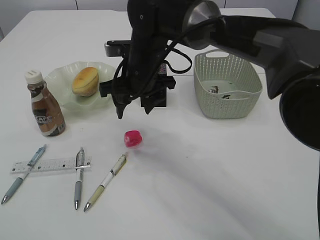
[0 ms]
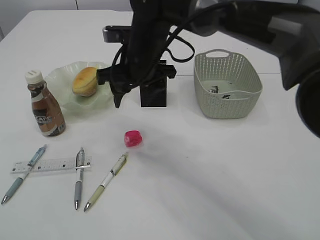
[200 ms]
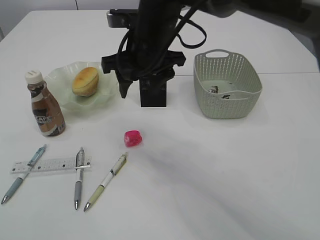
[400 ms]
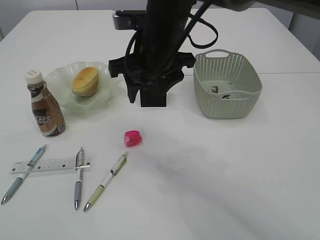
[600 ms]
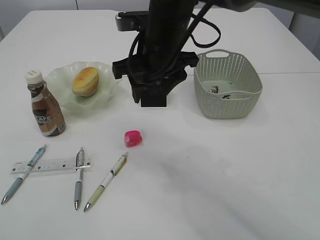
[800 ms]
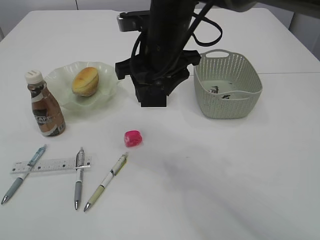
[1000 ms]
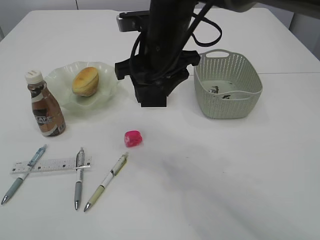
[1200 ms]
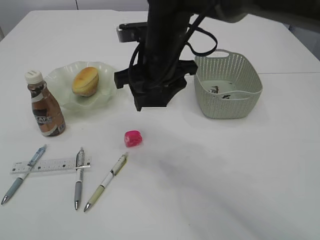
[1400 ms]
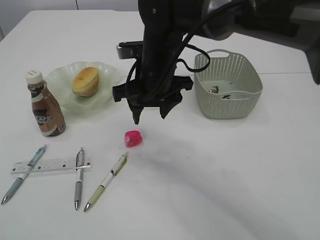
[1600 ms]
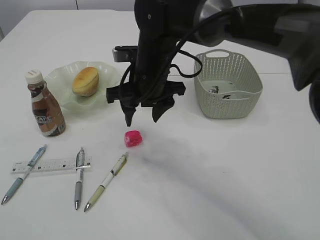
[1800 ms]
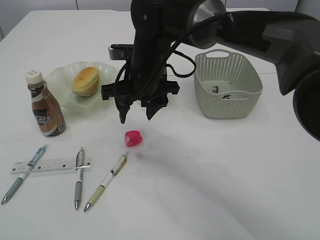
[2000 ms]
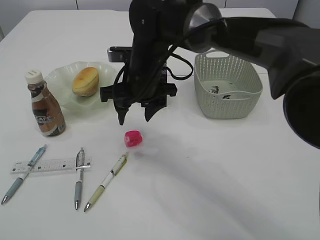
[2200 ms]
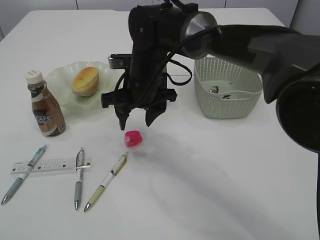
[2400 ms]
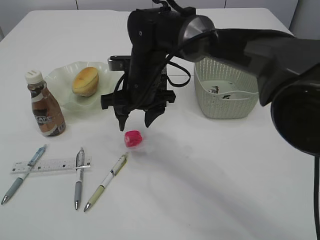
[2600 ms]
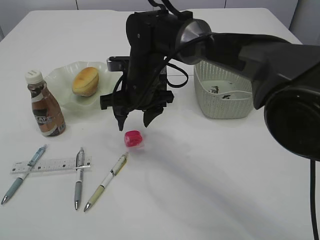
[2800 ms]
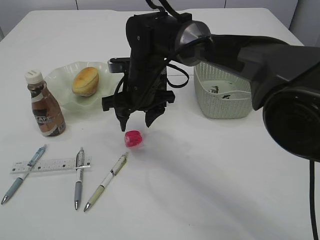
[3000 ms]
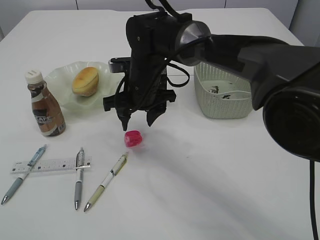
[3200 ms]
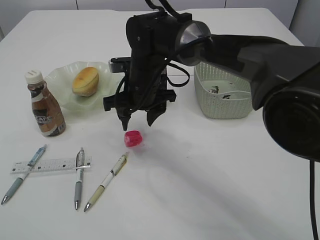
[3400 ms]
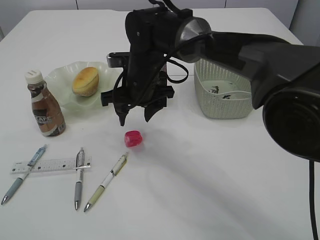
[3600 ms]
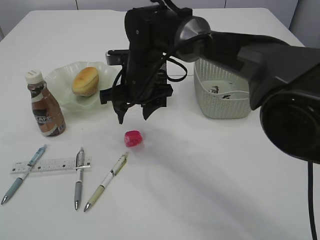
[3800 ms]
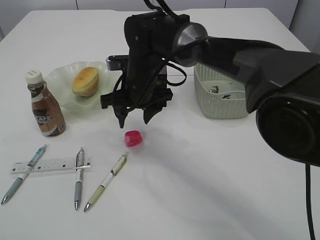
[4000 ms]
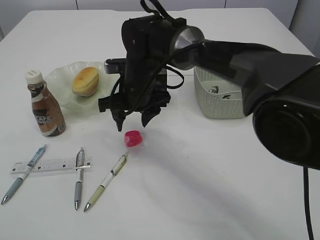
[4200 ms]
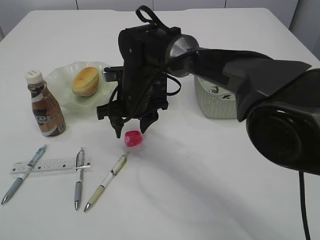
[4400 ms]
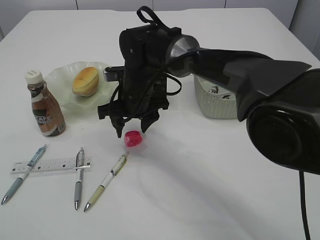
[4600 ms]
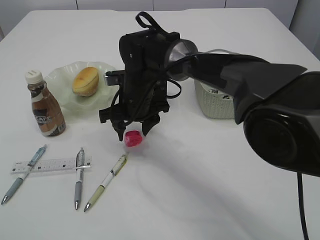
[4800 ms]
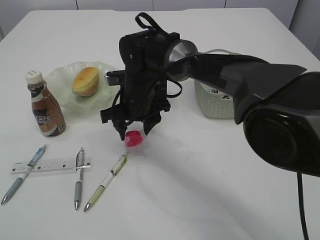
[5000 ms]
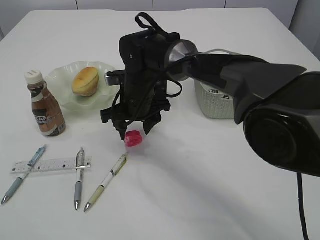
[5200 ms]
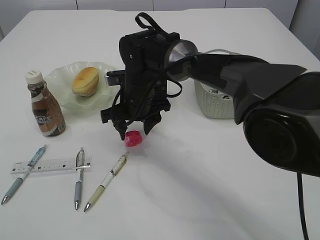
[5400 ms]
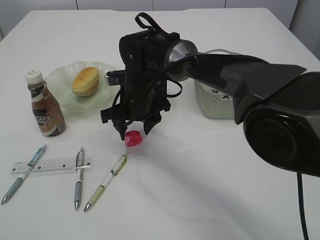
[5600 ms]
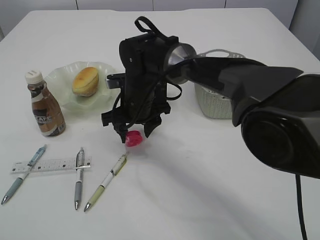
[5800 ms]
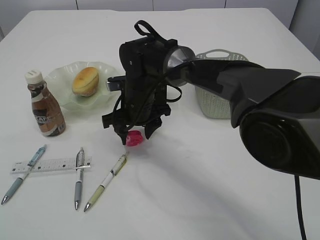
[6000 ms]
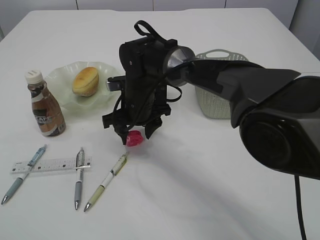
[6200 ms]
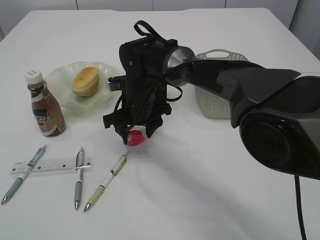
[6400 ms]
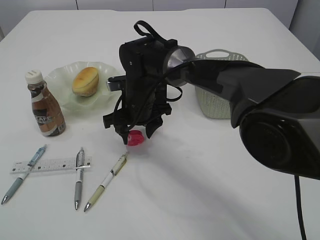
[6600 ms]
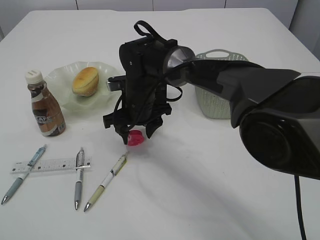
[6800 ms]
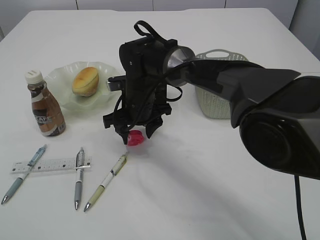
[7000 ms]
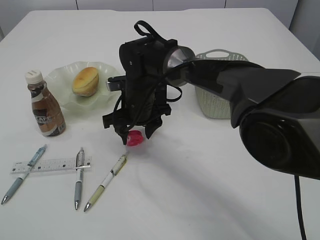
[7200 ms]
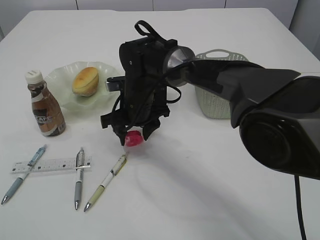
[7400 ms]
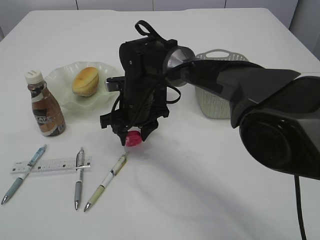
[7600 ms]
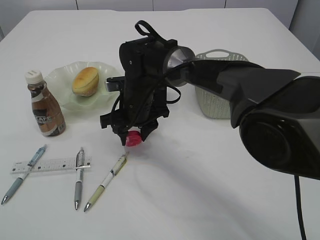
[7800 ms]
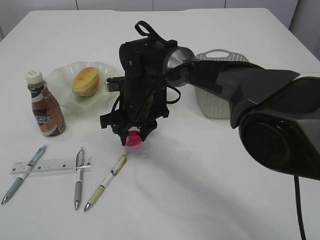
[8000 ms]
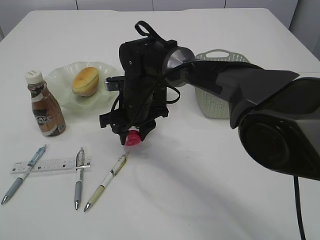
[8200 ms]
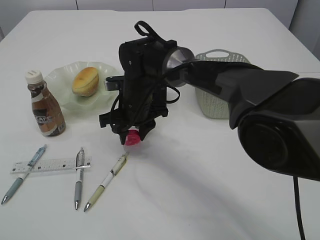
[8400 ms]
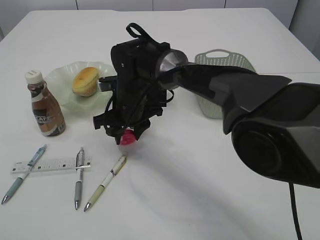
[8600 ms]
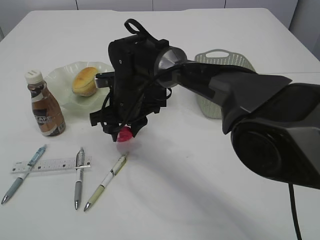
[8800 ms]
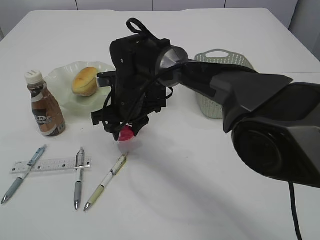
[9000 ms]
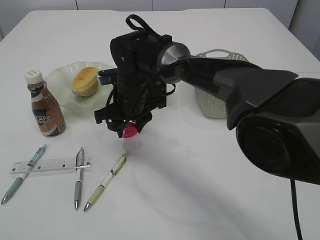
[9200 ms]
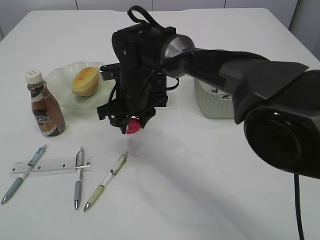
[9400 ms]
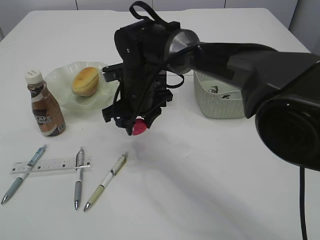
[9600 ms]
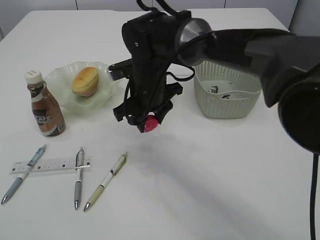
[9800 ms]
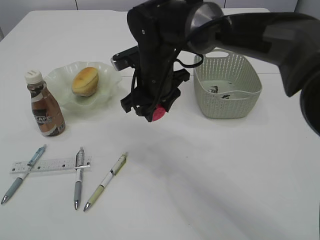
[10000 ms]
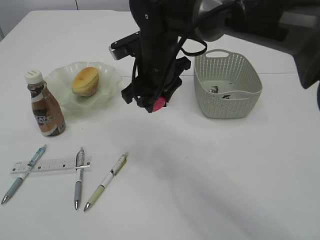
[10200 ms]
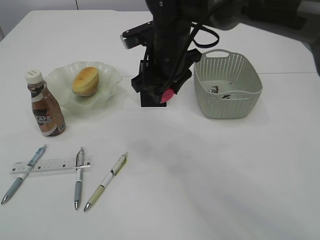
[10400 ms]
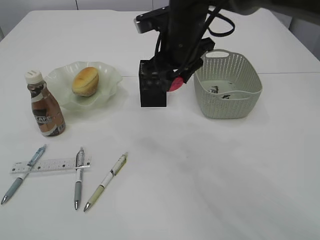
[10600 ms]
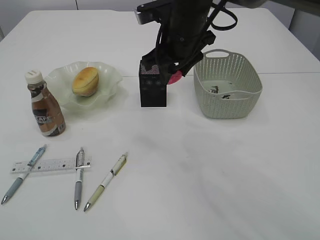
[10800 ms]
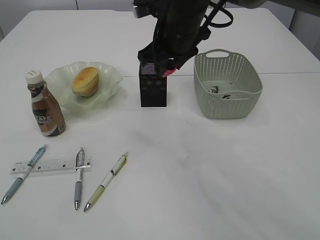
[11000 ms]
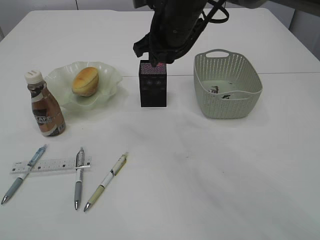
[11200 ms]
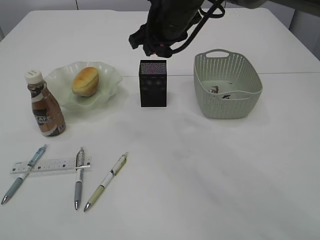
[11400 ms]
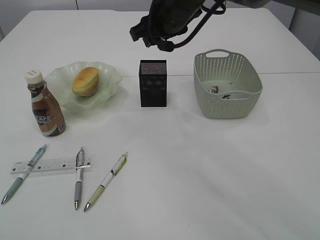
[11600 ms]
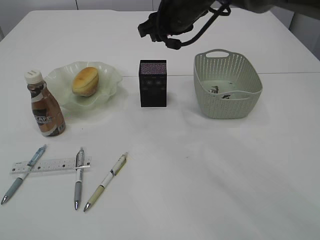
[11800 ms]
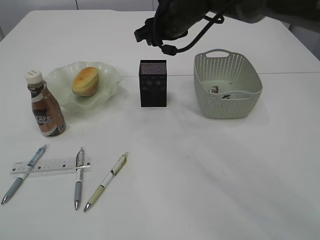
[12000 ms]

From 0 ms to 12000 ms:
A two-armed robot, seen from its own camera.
Step, from 0 ms to 10000 ms: Pick up the red pencil sharpener.
From 1600 ms to 3000 ms: The right gripper moves some 5 cm.
From 3000 ms to 6000 ms: There are only small adjustments of the grippers.
From 6000 ms to 9000 ms: Both grippers stay put.
From 9000 ms to 10400 ms: The right gripper shifts some 10 cm upward and to the right.
From 10400 ms to 12000 ms: The right gripper shifts roughly 5 cm forward.

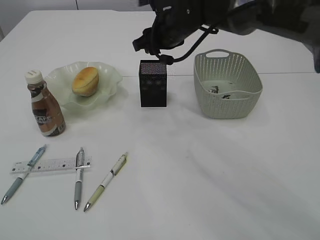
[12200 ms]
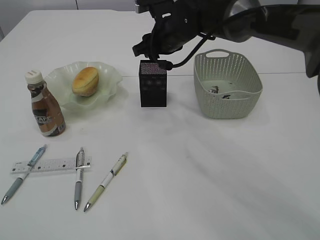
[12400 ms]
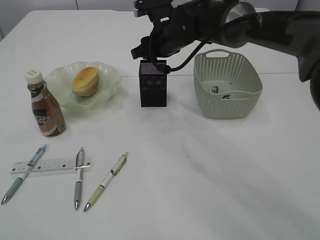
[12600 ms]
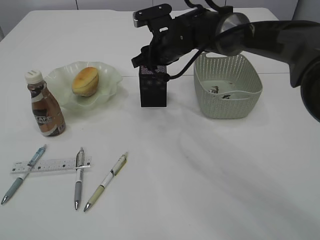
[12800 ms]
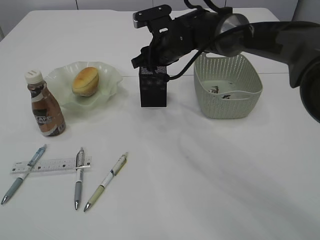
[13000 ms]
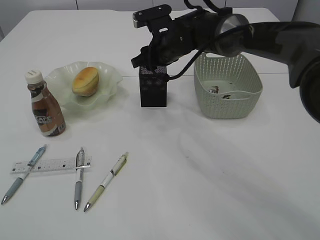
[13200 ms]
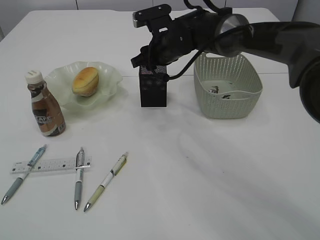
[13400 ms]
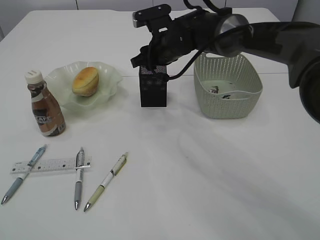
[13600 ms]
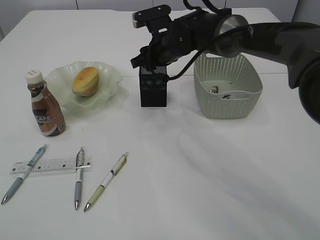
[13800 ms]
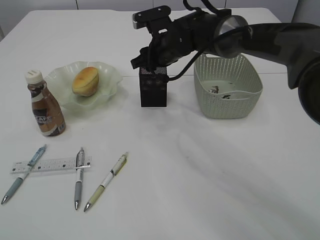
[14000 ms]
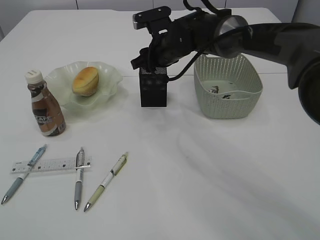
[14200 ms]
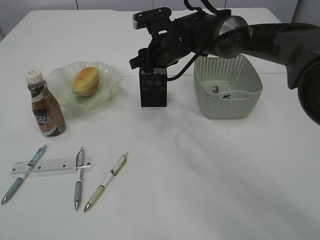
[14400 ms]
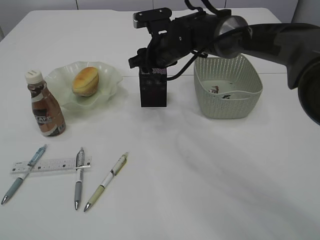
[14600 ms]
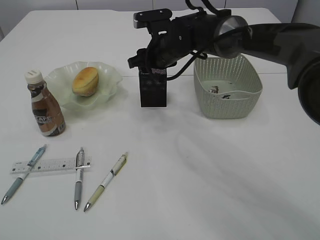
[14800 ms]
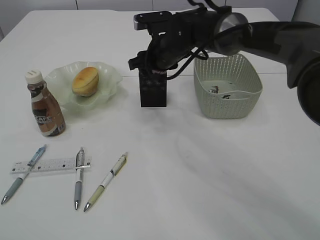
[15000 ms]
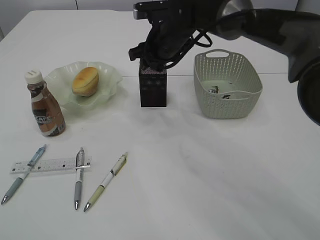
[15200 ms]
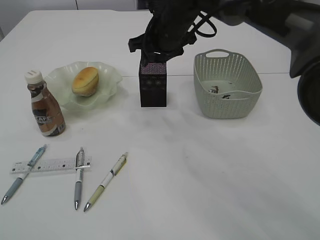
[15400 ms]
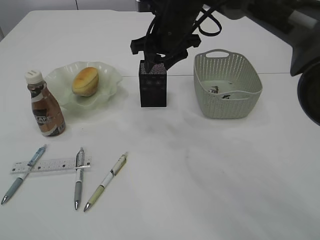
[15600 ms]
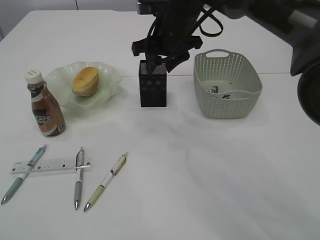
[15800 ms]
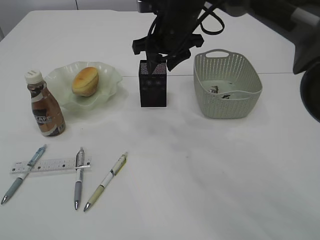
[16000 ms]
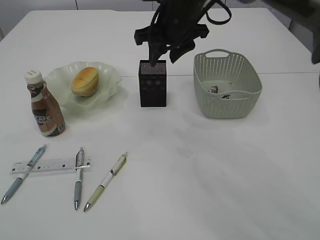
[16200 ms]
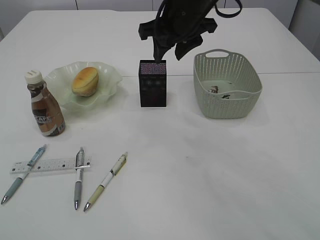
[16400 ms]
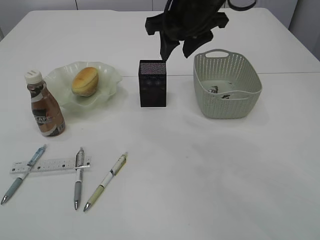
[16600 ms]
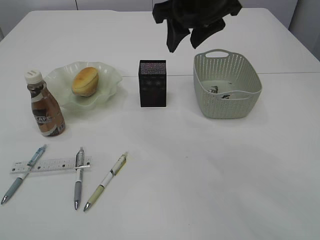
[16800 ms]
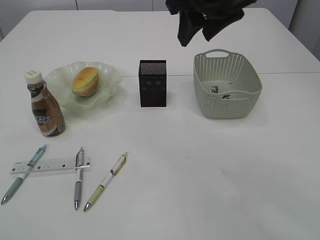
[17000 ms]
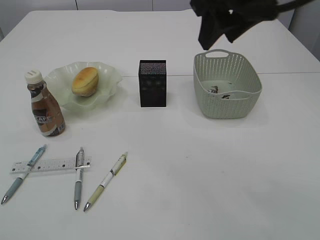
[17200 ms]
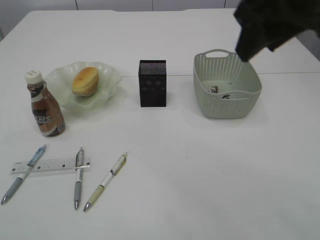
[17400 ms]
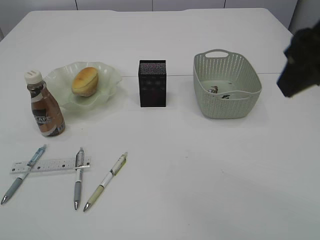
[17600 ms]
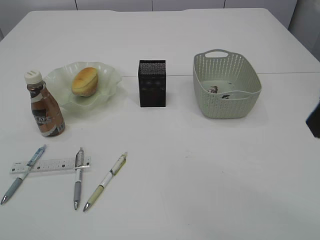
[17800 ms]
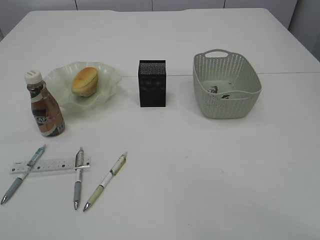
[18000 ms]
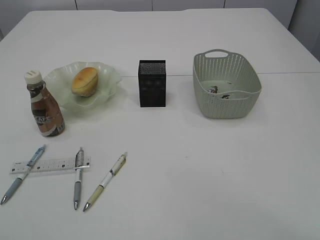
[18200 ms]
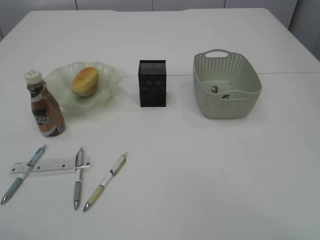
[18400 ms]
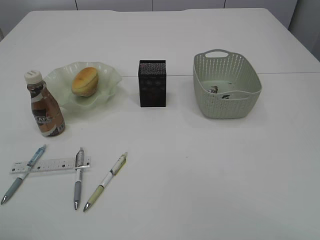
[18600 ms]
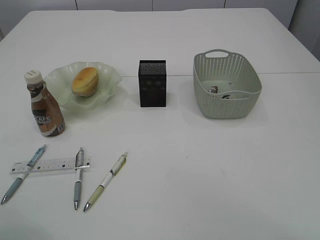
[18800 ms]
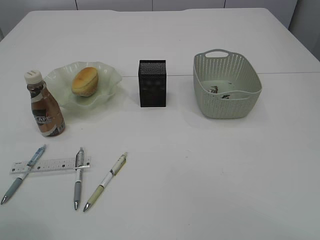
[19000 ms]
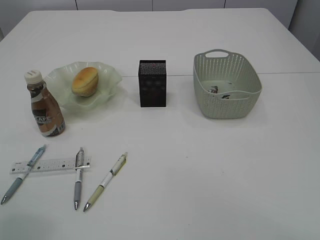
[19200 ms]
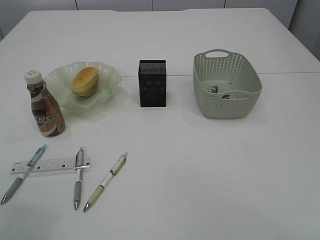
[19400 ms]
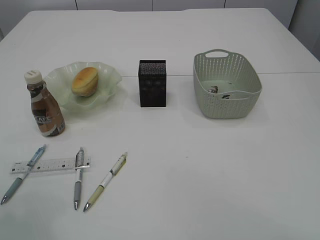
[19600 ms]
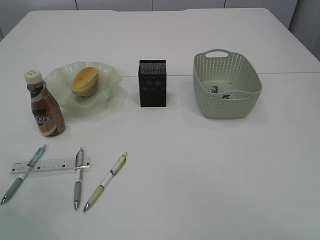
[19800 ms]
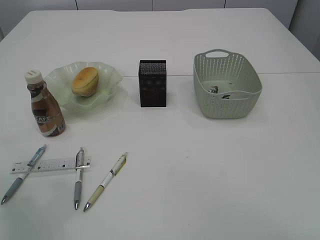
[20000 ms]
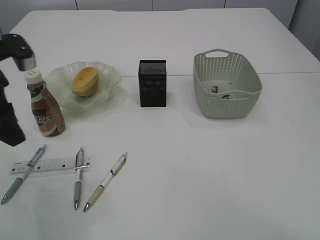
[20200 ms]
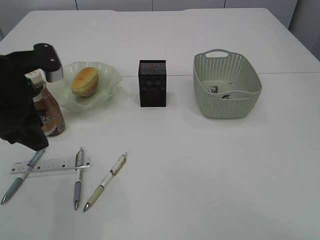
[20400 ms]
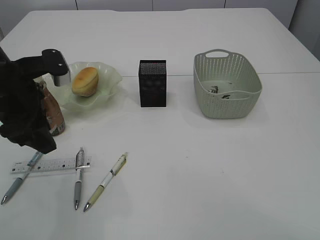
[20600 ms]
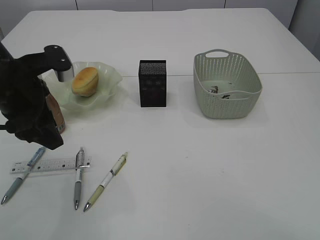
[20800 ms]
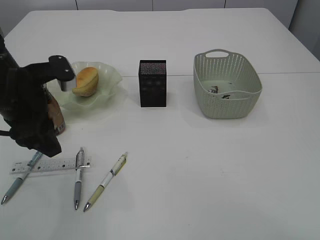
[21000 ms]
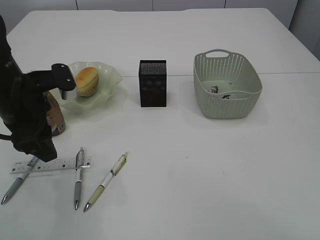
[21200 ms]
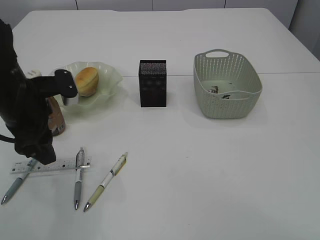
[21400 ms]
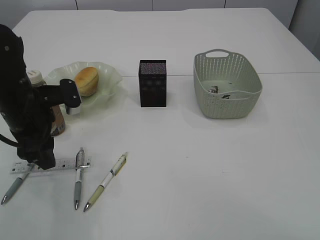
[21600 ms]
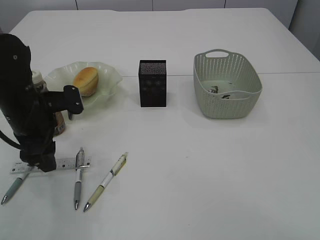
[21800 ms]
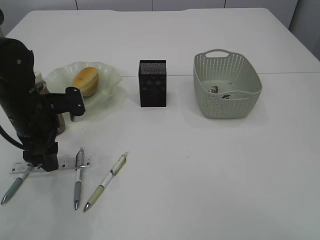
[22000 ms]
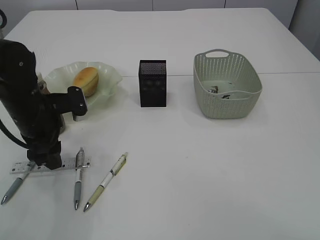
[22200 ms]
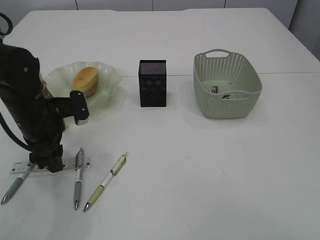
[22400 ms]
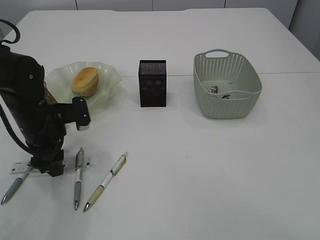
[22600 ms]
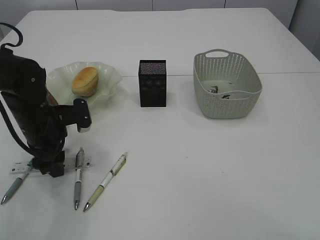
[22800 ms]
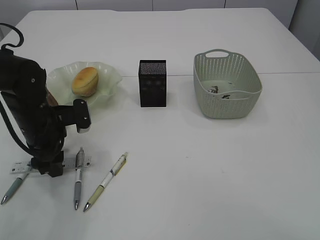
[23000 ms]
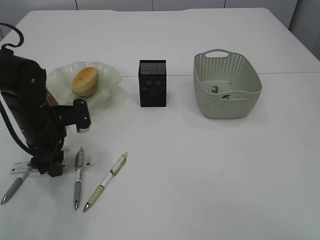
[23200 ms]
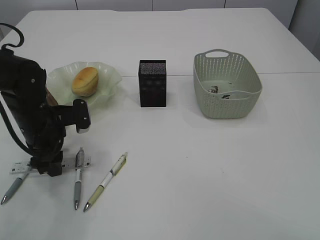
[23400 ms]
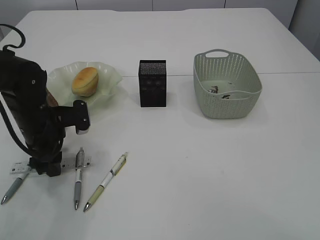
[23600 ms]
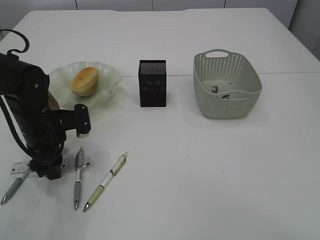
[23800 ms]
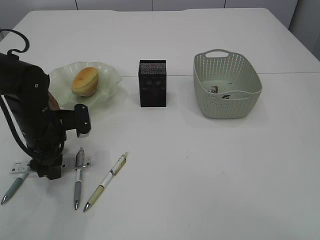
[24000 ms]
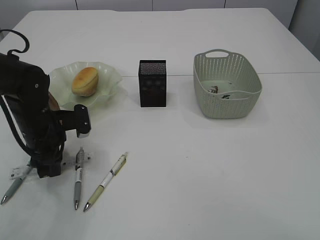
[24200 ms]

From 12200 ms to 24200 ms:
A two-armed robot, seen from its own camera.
Step, from 12200 ms to 16200 ms: Place the red pencil sharpener into the pen holder.
From 12200 ms to 13800 ms: The right gripper changes place by about 5 cm.
From 13800 ms to 15200 ms: The grippers stay close to where they were, moving slightly.
From 15200 ms to 16600 ms: The right gripper heads upward and backward, covering some 10 cm.
From 16600 ms to 18200 ms: The right gripper is displaced backward and to the right by some 30 cm.
From 19800 ms to 21200 ms: The left gripper goes approximately 10 cm to the right and downward.
From 21200 ms to 22600 ms: The left gripper moves downward, approximately 10 cm.
From 22600 ms to 24200 ms: The grippers stay close to where they were, moving slightly.
